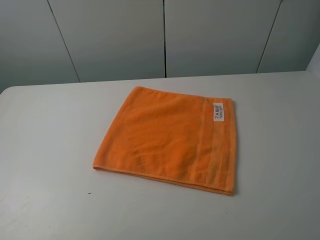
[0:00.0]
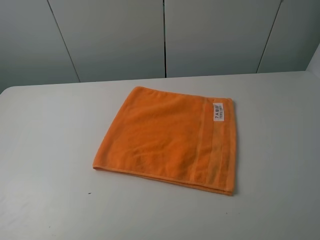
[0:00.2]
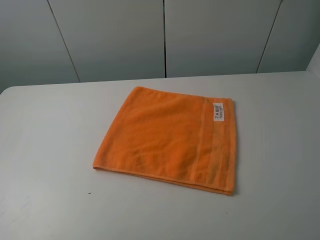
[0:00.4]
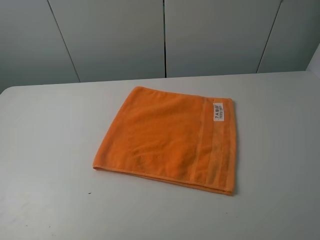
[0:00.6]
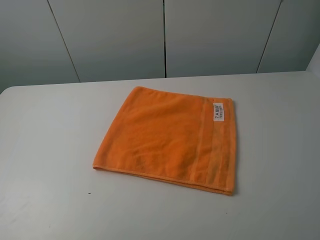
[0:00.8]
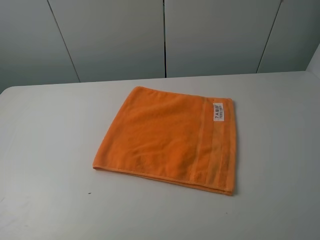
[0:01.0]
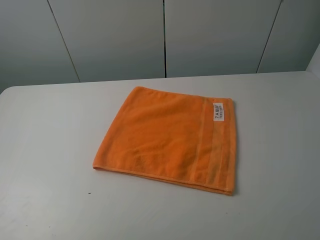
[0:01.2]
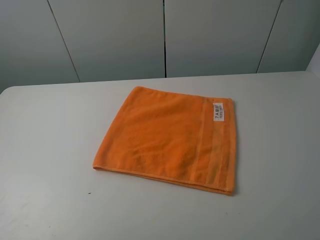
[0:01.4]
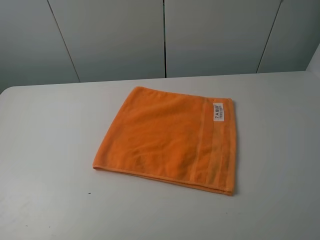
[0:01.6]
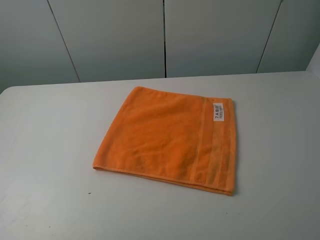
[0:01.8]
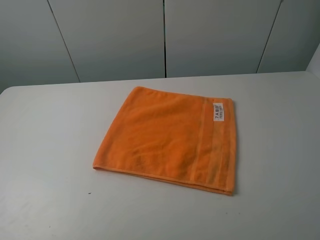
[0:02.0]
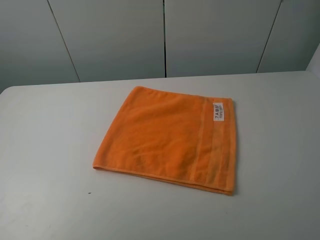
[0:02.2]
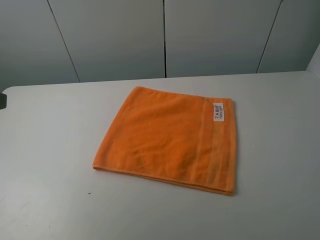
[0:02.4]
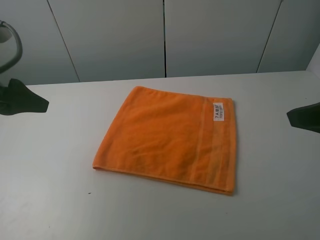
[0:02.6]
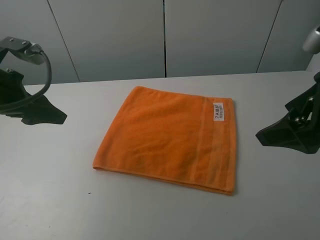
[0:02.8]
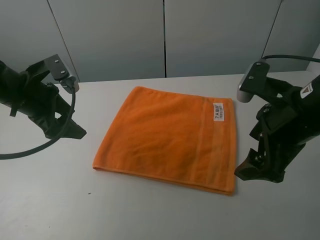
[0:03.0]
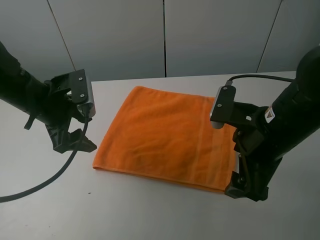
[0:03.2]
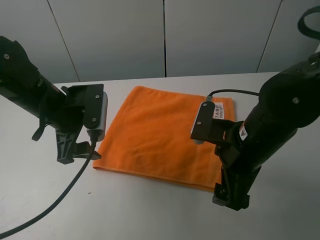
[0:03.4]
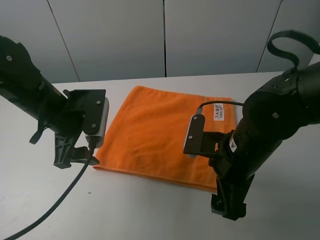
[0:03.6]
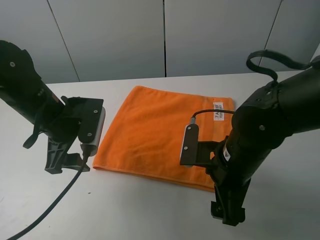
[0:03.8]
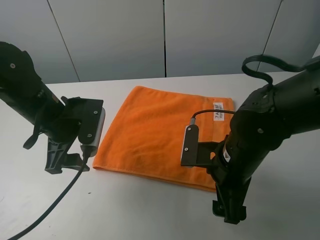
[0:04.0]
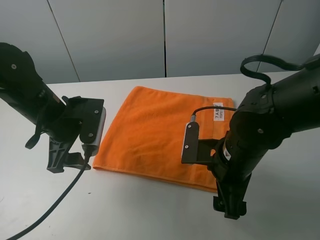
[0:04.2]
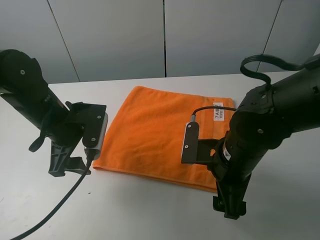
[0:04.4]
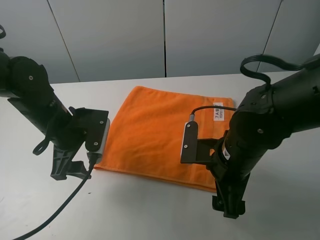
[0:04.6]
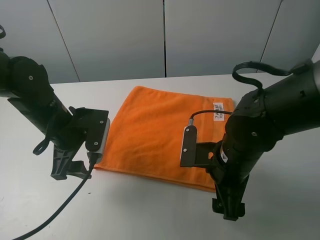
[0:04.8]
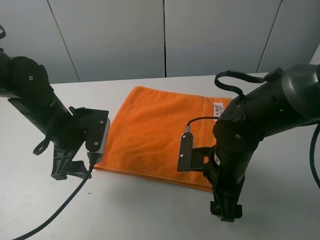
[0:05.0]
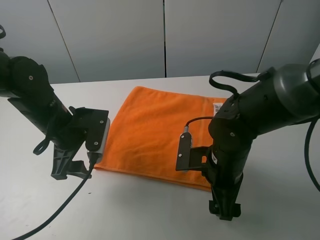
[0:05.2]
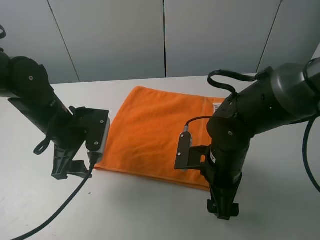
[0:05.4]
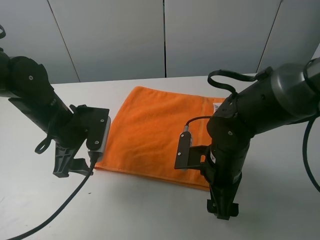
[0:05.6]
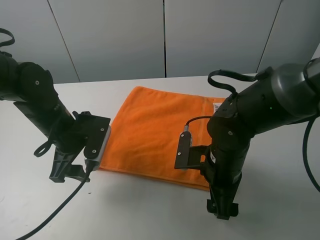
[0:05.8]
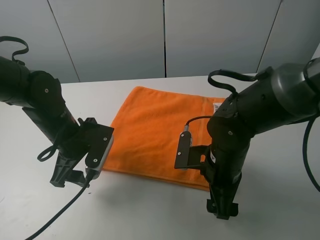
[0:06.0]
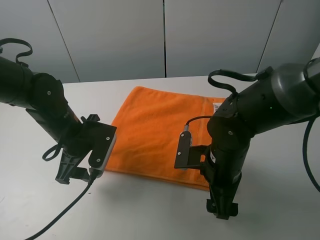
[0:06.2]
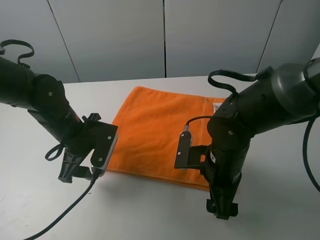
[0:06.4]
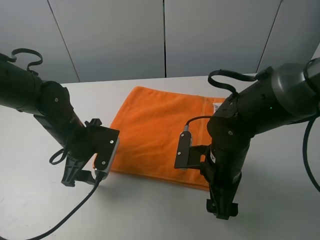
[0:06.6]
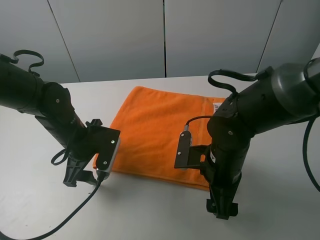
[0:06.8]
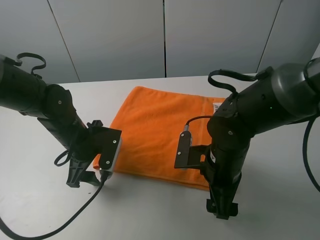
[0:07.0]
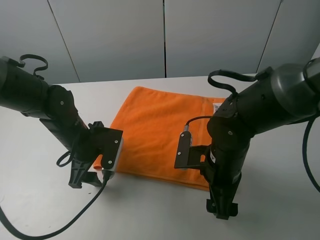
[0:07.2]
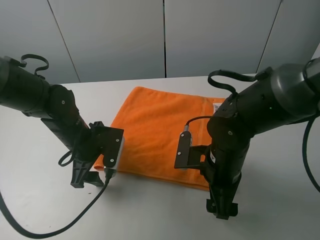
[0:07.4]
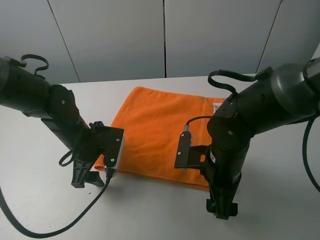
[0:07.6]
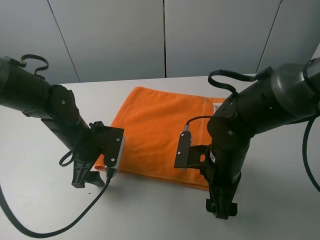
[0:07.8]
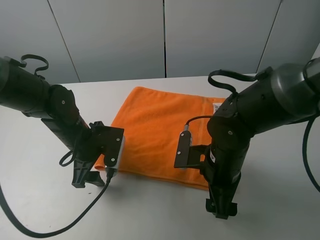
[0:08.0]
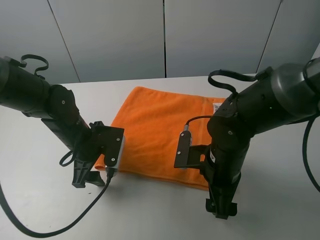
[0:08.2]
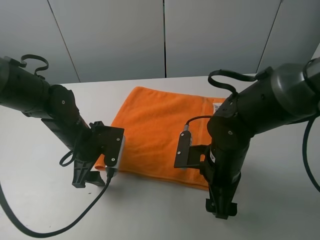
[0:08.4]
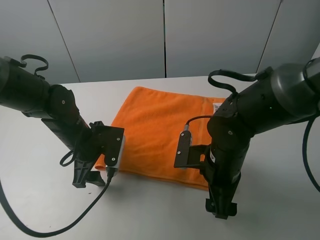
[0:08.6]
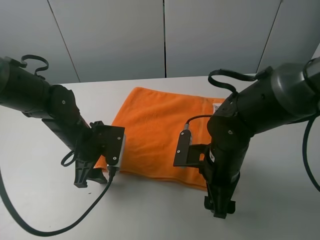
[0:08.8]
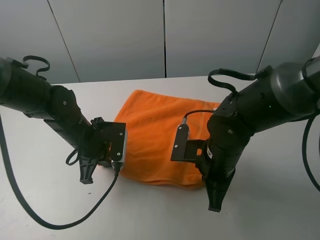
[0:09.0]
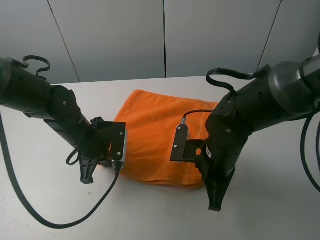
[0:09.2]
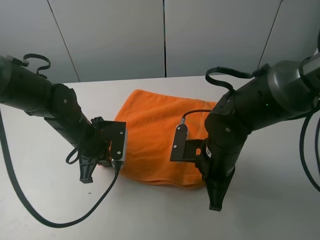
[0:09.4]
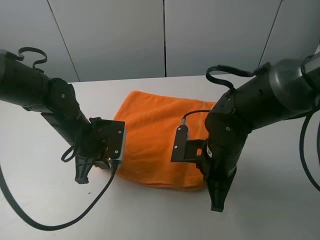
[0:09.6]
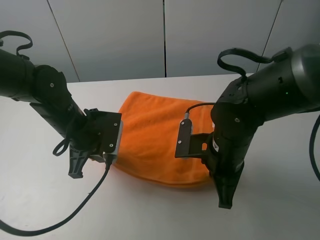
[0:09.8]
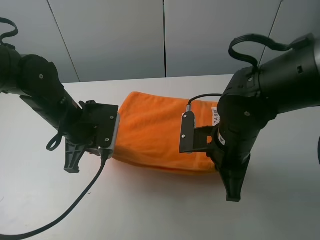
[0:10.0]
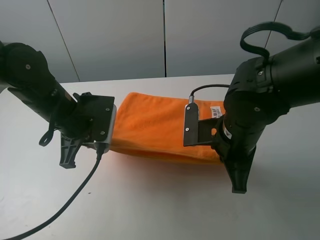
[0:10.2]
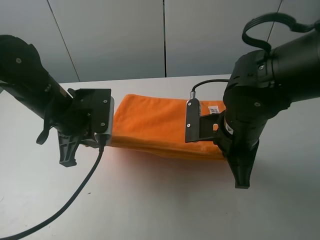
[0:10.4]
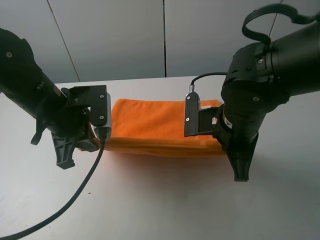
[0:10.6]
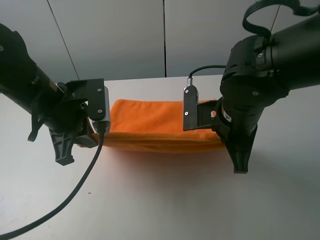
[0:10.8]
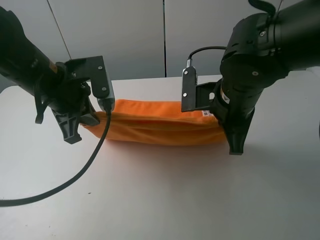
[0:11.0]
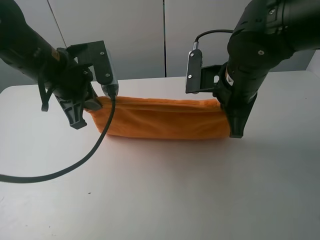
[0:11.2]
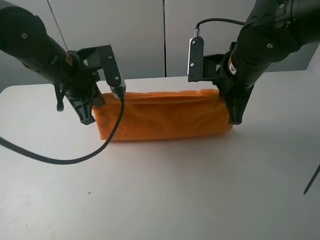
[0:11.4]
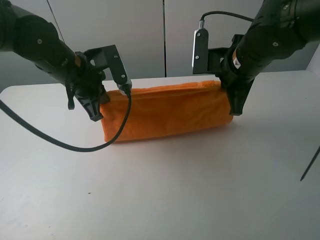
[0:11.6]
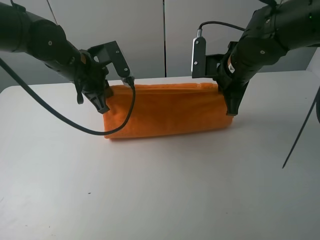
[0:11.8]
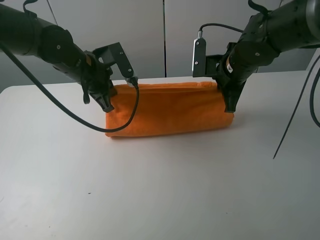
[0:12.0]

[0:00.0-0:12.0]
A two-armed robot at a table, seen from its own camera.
Task of the whole recording: fold the towels on the table.
Step, 0:00.0 to 0:09.0: Grasp the orange towel with the right gripper.
0:01.6 to 0:03.0: The left gripper is displaced forward by some 30 cm, while the right gripper is displaced forward, to the left and downward by about 25 cm.
0:03.0 to 0:04.4: The right gripper shifts about 10 cm downward and to the left; the left gripper travels to the right by some 5 cm.
0:04.4 to 0:06.0: There are only small adjustments of the grippers.
0:06.0 to 0:07.6: The grippers make only small movements.
0:07.6 to 0:09.0: The left gripper closes up. Meanwhile the right gripper closes its fingers.
0:09.0 to 0:10.4: Both grippers travel together upward, about 10 cm.
0:10.4 to 0:12.0: Both grippers travel together forward, roughly 15 cm.

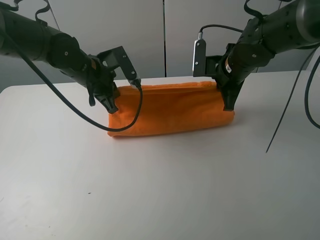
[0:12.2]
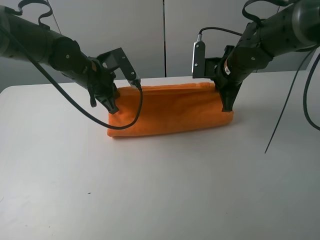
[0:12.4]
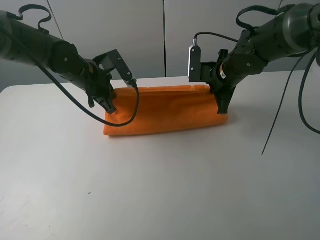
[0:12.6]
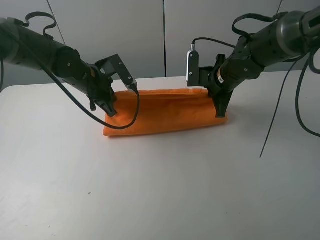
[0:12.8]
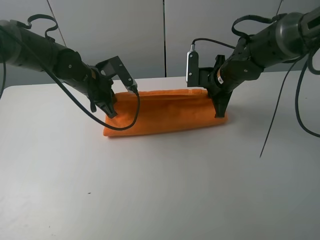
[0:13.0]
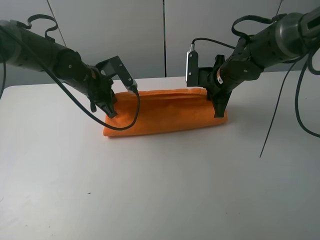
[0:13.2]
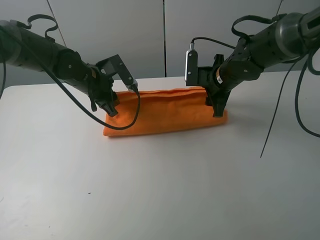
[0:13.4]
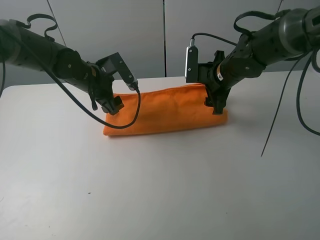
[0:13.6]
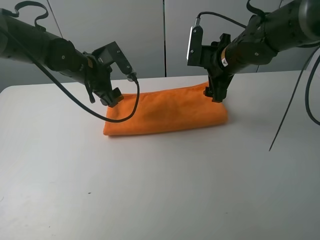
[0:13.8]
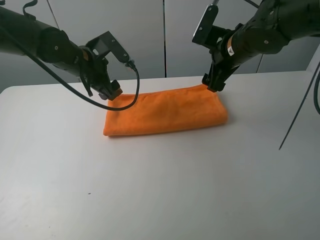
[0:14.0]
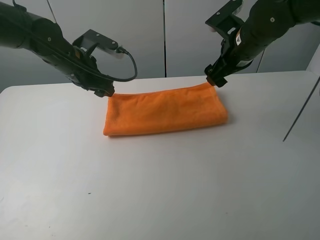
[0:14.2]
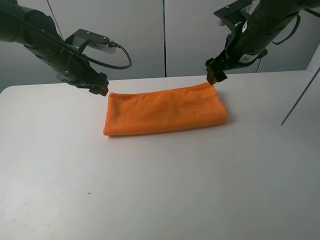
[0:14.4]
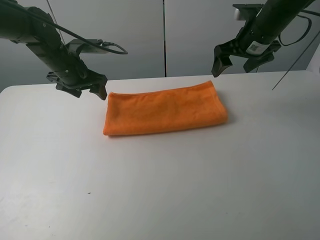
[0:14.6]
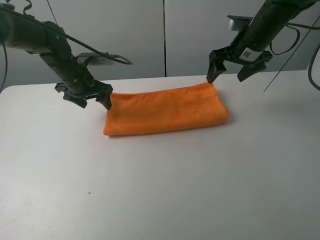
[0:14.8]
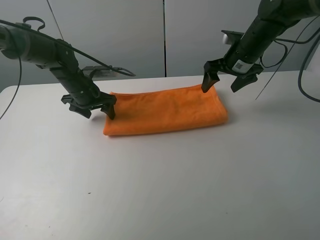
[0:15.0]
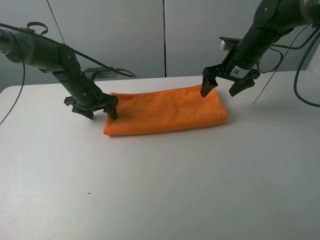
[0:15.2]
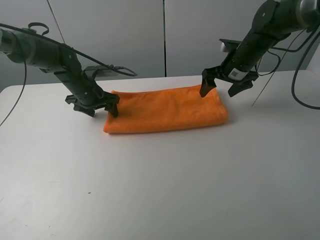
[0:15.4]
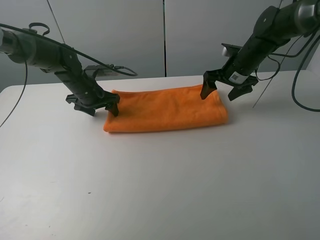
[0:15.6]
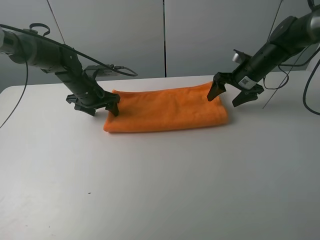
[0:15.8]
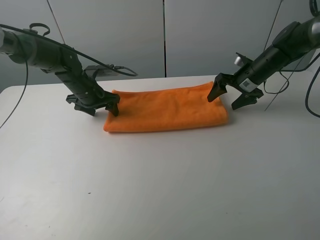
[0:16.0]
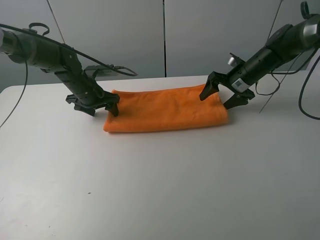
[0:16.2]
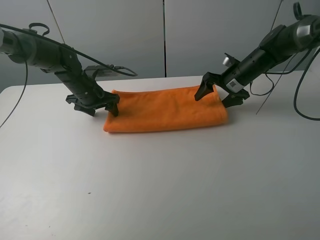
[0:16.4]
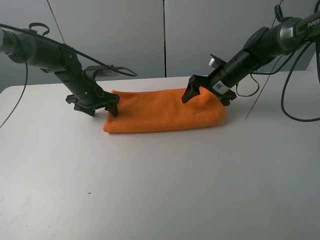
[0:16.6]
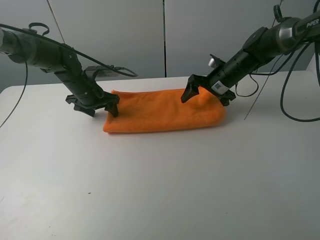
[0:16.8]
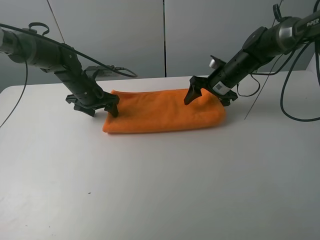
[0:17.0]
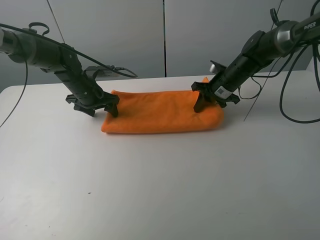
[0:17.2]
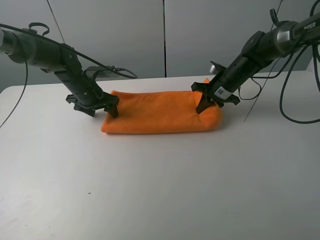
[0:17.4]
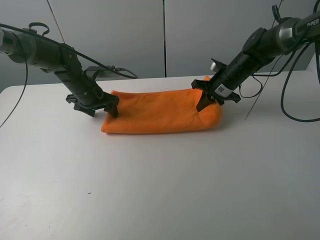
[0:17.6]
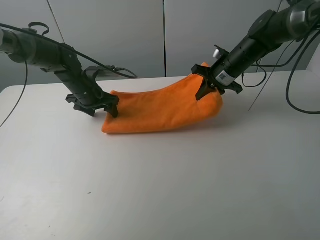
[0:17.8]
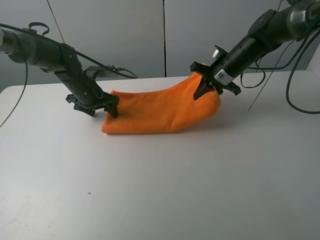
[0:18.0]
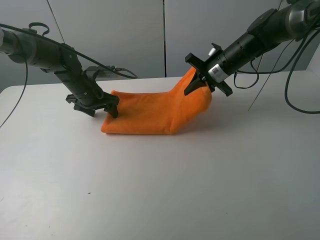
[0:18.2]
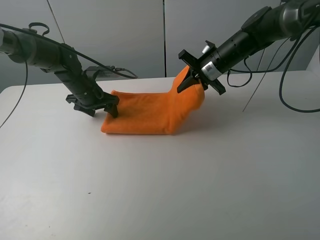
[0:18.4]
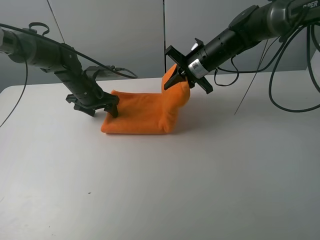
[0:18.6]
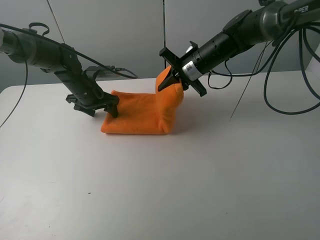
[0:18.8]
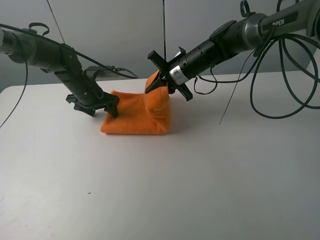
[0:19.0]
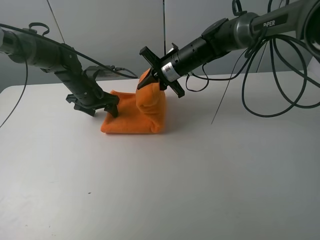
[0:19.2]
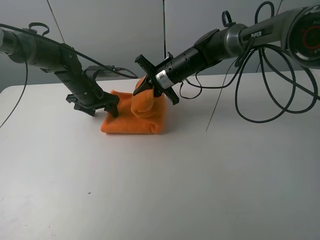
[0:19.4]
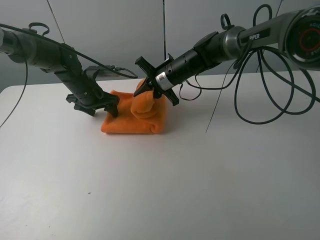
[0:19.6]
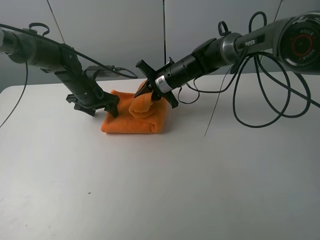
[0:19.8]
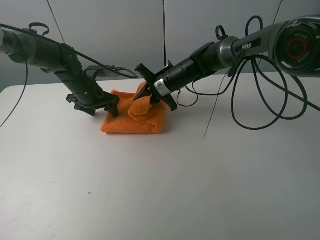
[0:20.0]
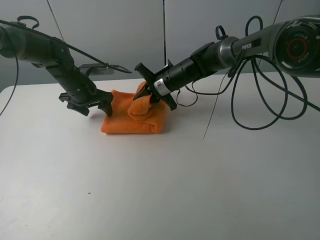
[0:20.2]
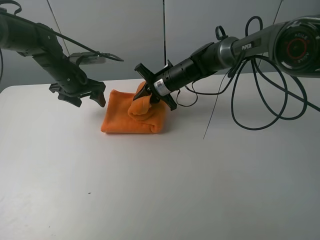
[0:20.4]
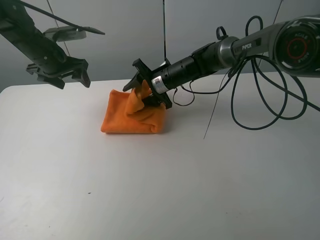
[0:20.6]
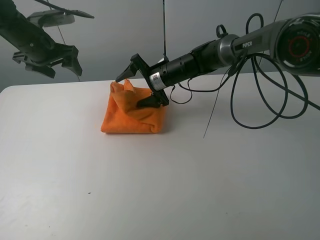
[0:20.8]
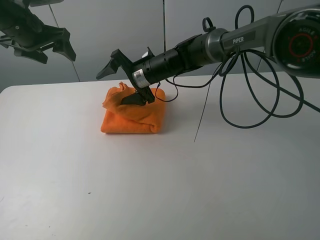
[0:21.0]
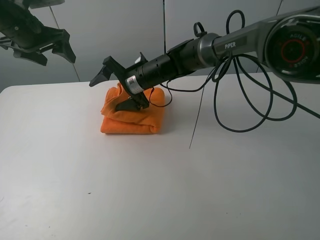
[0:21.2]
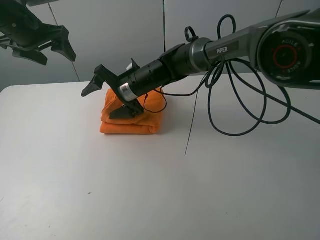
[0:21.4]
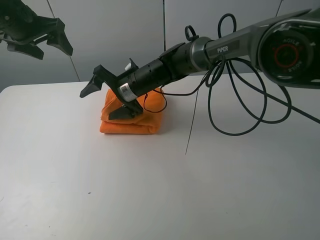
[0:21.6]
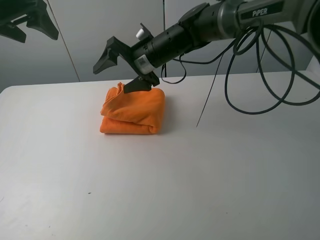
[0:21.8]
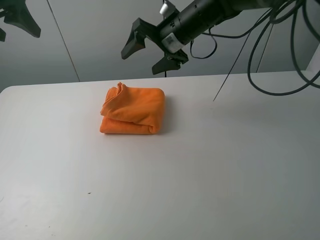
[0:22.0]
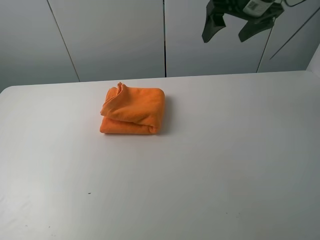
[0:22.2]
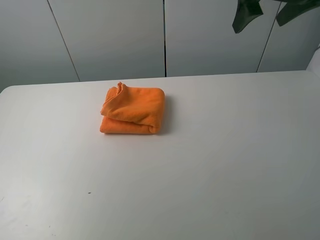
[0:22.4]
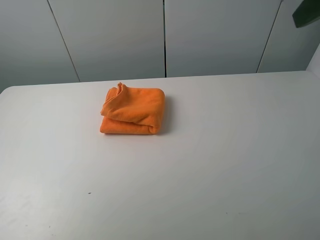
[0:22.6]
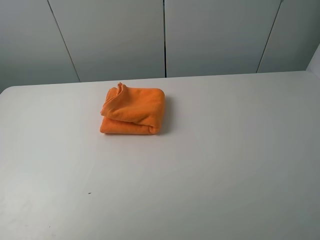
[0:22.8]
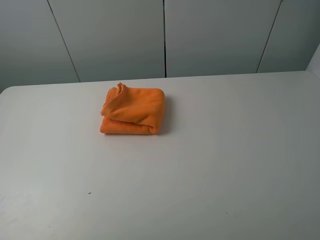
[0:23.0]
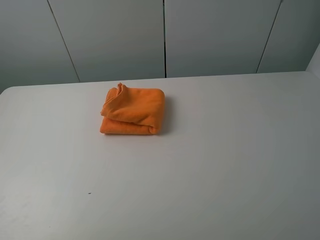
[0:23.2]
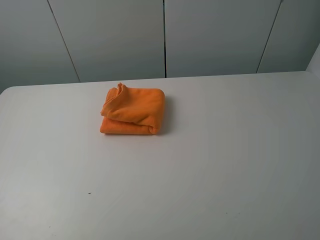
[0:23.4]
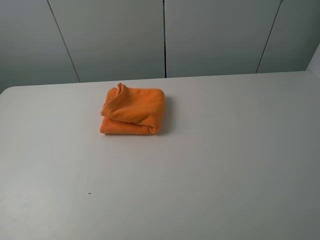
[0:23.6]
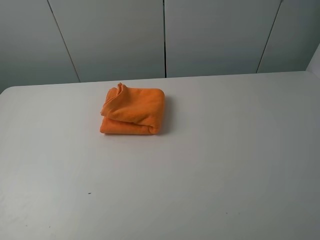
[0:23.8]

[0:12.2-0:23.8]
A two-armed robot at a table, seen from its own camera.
Task of the whole recording: fold the towels on the table.
Step, 0:14.0 to 0:15.2: Press on the orange towel with the left gripper.
Step, 0:15.4 to 0:20.8: Fold the orange towel from right to left with right gripper.
Step, 0:21.0 to 0:21.6: Arrange the orange towel with the right hand.
0:12.2 to 0:13.6: The left gripper opens its fingers, while the right gripper opens its fingers.
0:13.6 to 0:15.0: The left gripper ends up some 5 cm from where it was.
0:15.0 to 0:16.6: The right gripper travels downward by about 10 cm.
0:16.6 to 0:18.0: The right gripper closes.
0:18.0 to 0:19.4: The right gripper goes some 15 cm to the left.
0:19.4 to 0:21.0: The right gripper is displaced to the left by approximately 5 cm, and opens its fingers. Meanwhile the left gripper heads upward and to the left, covering approximately 20 cm.
0:21.0 to 0:22.4: The left gripper goes about 20 cm backward and upward. Meanwhile the right gripper travels upward, to the right and backward by approximately 35 cm.
0:22.4 to 0:23.8: The grippers both shift backward by about 25 cm.
